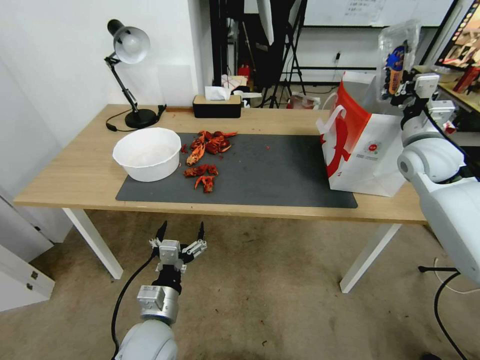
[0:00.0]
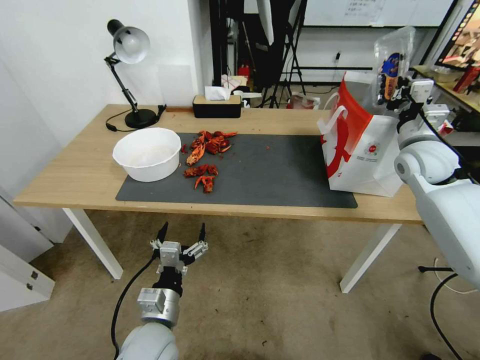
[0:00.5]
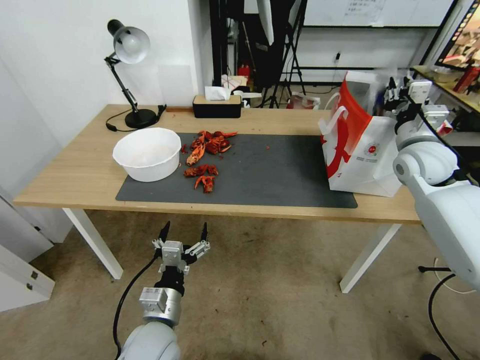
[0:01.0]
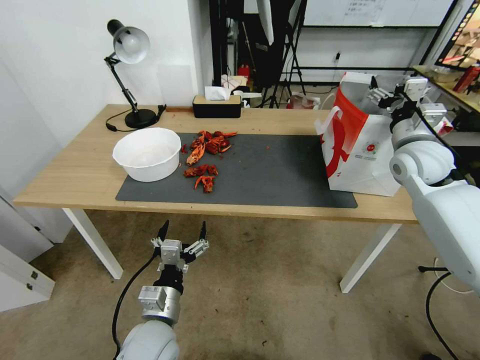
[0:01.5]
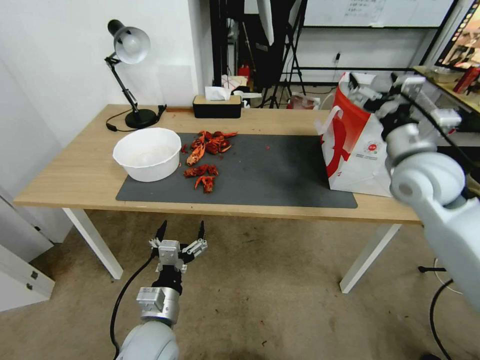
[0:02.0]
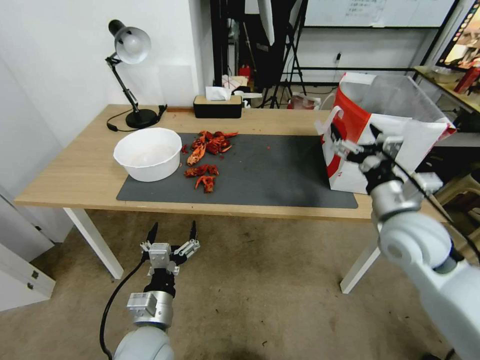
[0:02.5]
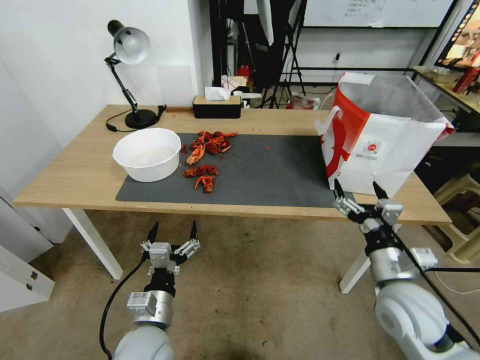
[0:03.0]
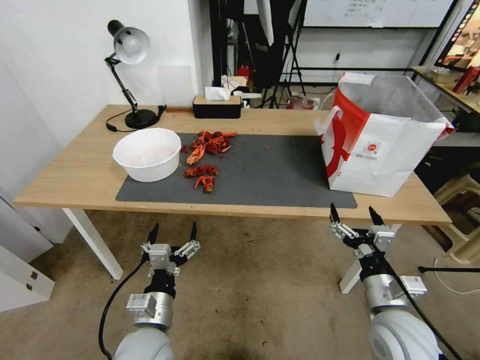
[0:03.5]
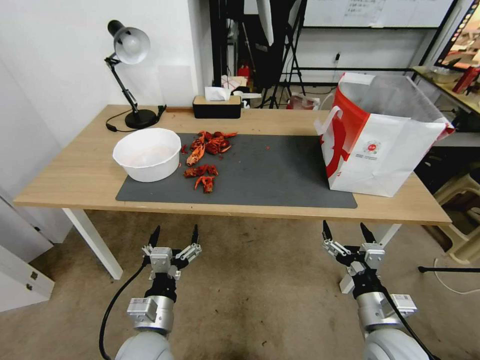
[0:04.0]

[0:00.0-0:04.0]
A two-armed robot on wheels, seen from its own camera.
Task of the whole recording: Close the takeout container lid, then place the container into the takeout bag.
0:00.0 to 0:02.0: The right gripper heads backward and to the left, covering approximately 10 cm, and opens.
0:02.0 to 0:04.0: The right gripper heads downward and backward, covering about 35 cm.
